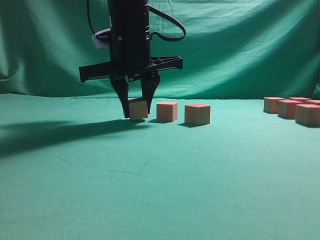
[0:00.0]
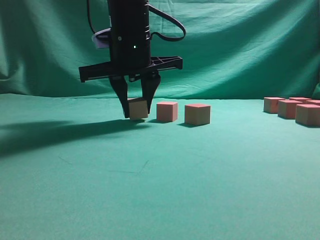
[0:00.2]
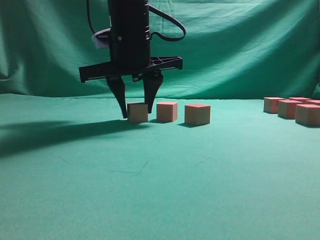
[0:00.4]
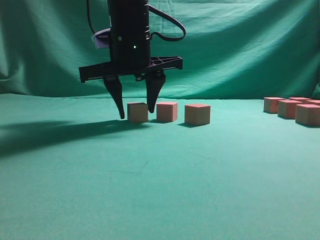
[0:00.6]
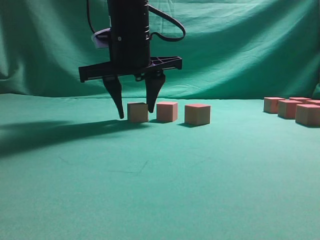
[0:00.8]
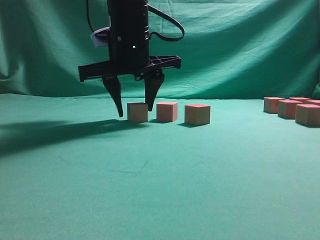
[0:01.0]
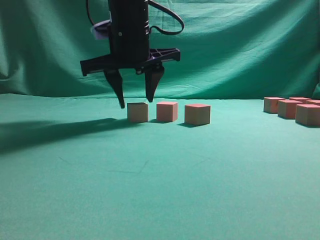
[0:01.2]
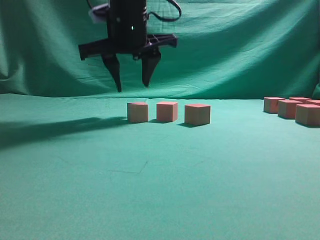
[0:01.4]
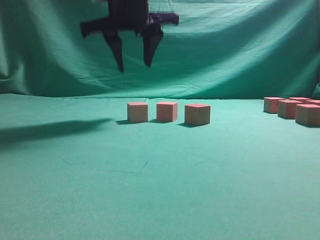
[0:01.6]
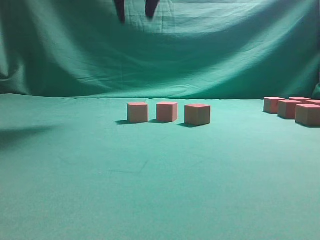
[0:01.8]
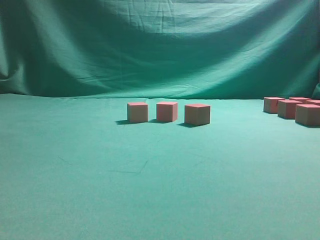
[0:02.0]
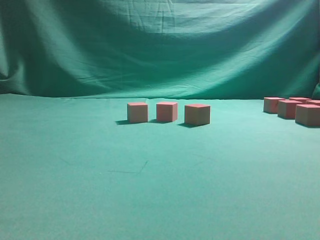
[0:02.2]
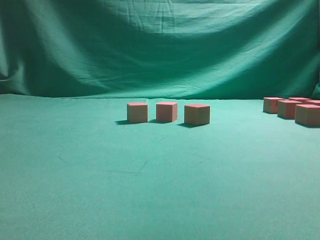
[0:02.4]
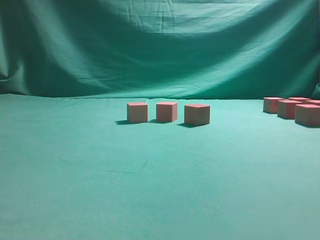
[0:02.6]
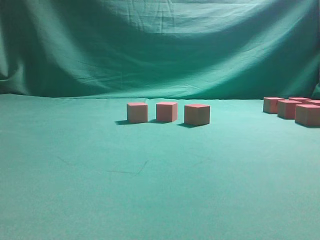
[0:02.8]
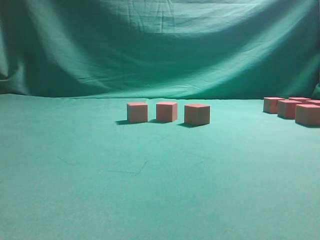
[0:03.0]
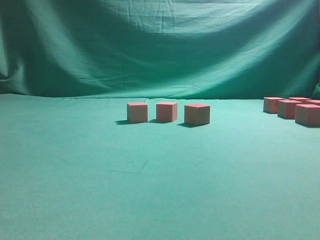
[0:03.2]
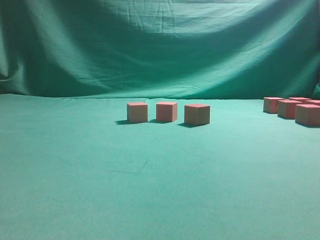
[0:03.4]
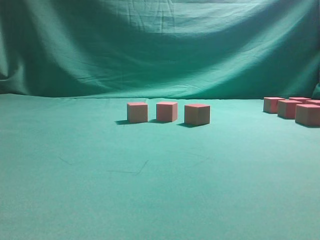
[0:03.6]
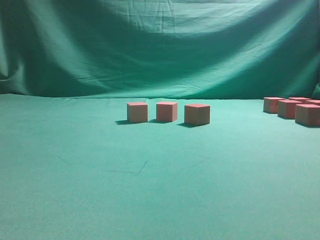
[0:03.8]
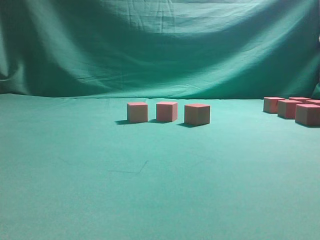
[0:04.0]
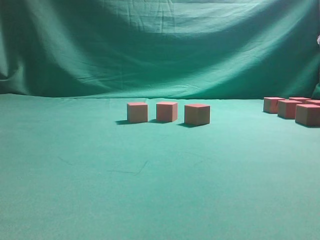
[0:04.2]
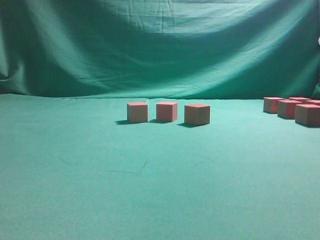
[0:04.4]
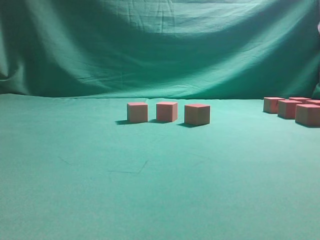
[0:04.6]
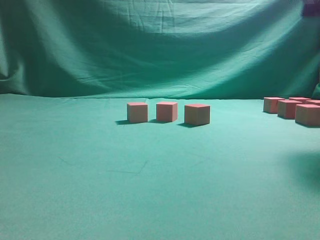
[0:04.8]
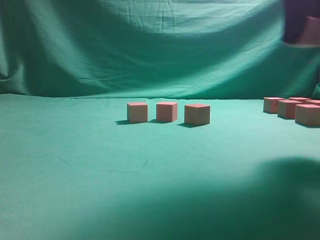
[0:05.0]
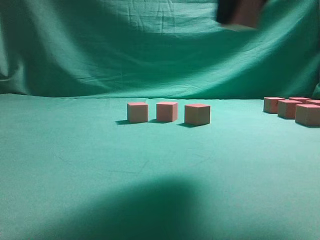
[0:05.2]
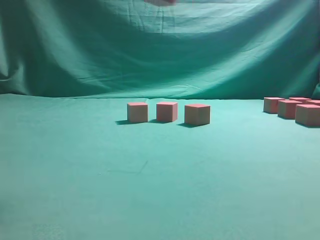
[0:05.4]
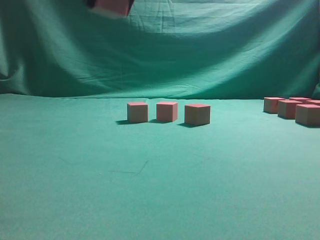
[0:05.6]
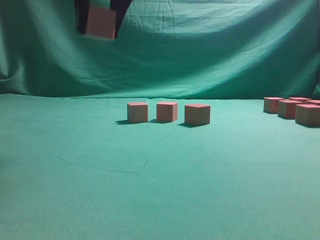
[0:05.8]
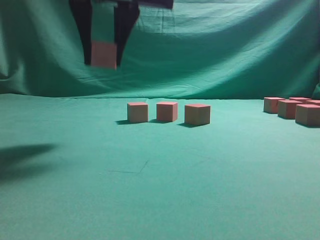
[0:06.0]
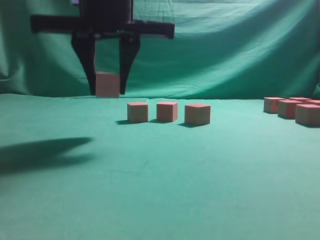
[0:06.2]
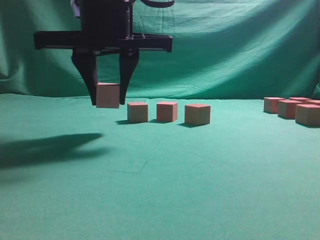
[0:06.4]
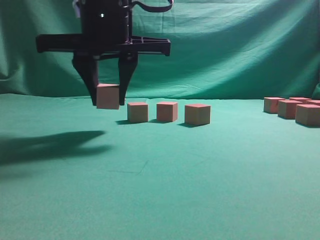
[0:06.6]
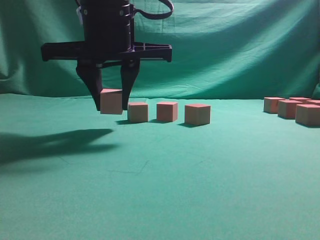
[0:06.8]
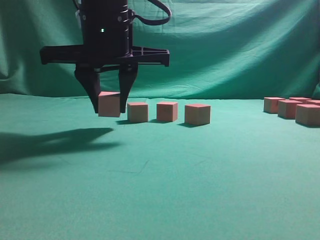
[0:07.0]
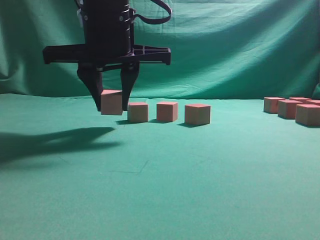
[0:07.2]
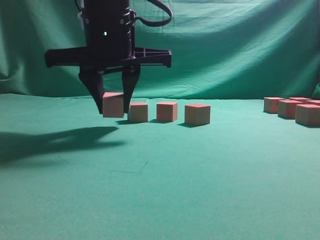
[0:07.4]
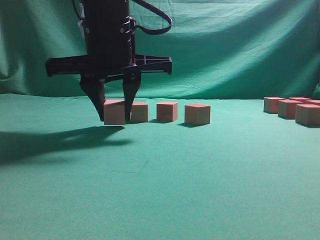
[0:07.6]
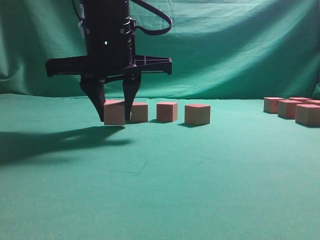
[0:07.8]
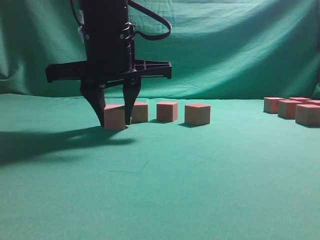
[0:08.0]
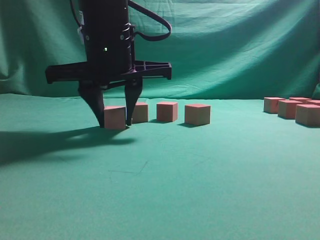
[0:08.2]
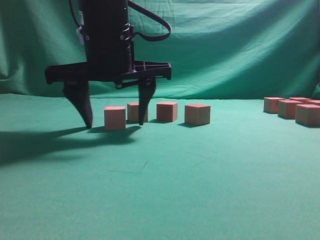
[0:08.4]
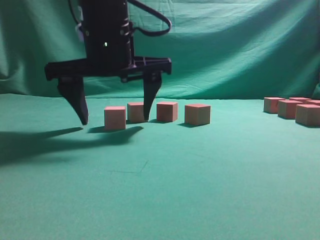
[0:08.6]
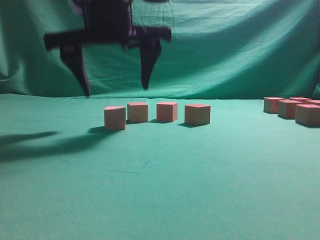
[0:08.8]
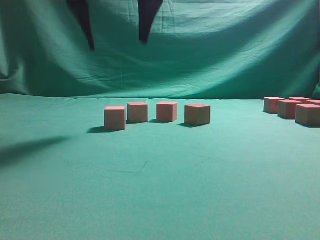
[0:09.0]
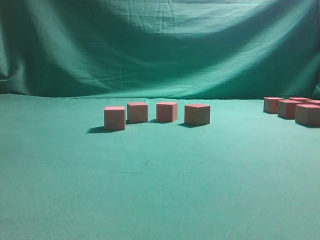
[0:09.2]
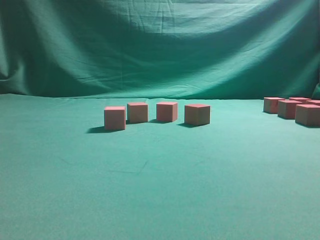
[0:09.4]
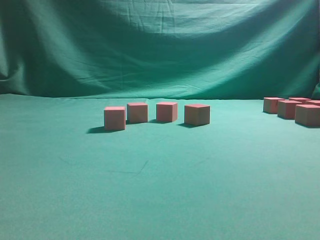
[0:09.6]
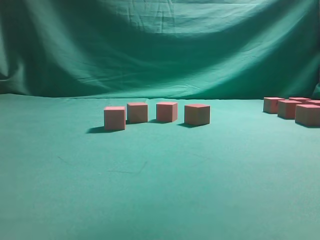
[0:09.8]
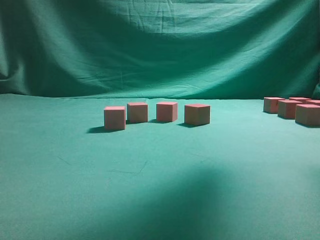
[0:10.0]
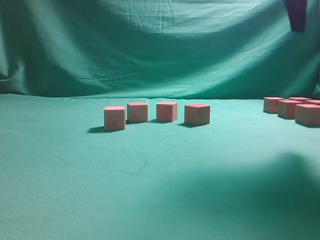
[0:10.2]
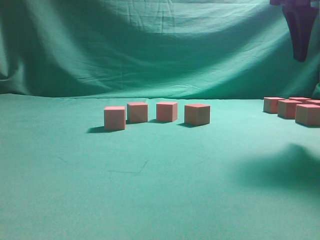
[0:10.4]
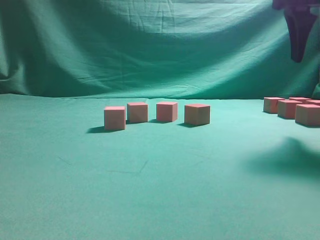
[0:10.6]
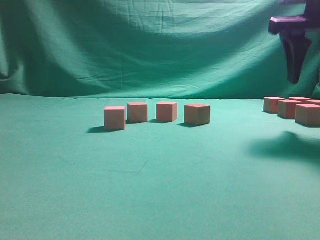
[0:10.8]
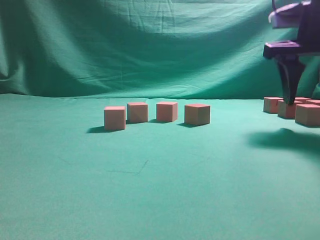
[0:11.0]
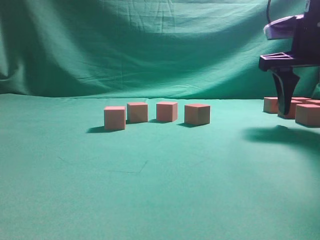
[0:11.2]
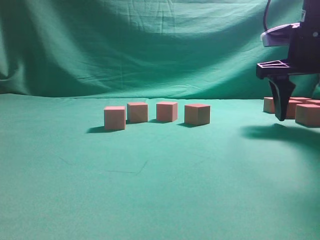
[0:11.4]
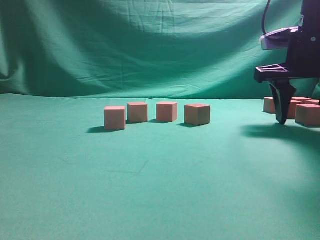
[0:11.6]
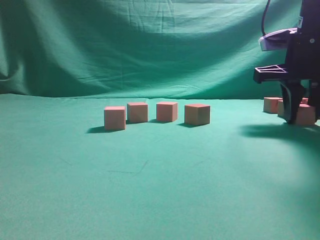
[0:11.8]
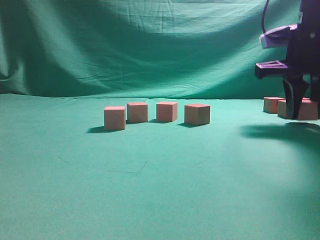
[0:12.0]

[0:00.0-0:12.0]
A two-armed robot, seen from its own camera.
Task of the whole recording: pick up the multiple cubes in two columns one by one and place them in another position on the table.
Step, 1.0 to 4.6 s: Pick up the block on the table.
Step, 4.8 to 8.2 s: Place the block at the correct position to assemble the letter S.
Step, 8.4 to 11.8 s: Pick up the block on the table.
0.0 to 1.6 s: The right gripper moves upward, roughly 5 cm.
1.6 to 3.0 s: The right gripper goes about 35 cm to the right and backward.
4.4 to 6.0 s: The right gripper travels to the left by some 35 cm.
6.0 to 7.6 s: The right gripper shifts approximately 10 cm downward.
7.6 to 9.0 s: The right gripper heads upward, covering some 10 cm, and opens.
9.0 to 10.4 s: The right gripper moves to the right, roughly 25 cm.
10.4 to 12.0 s: The right gripper is displaced downward and forward by some 10 cm, and closes.

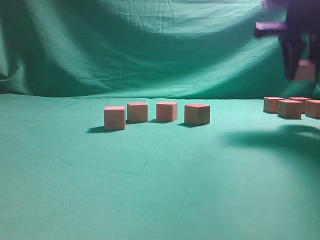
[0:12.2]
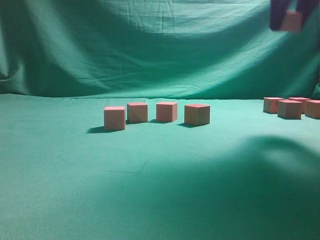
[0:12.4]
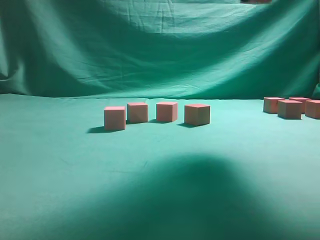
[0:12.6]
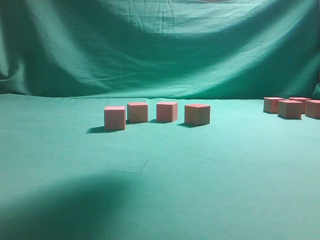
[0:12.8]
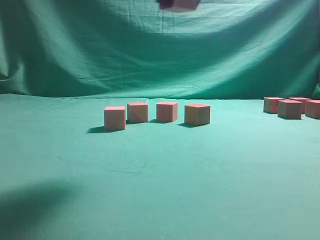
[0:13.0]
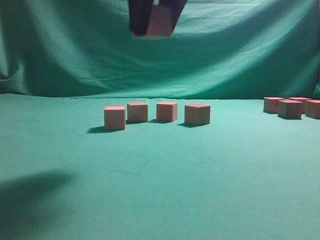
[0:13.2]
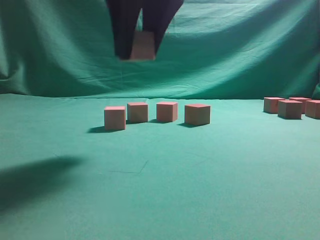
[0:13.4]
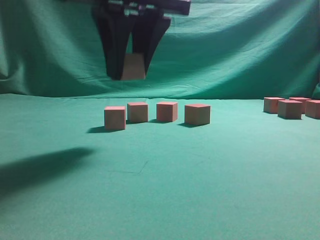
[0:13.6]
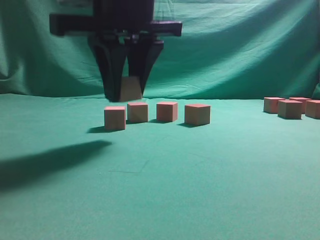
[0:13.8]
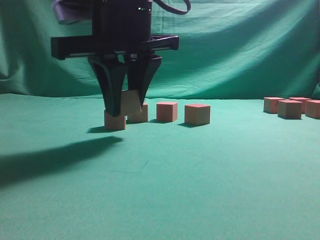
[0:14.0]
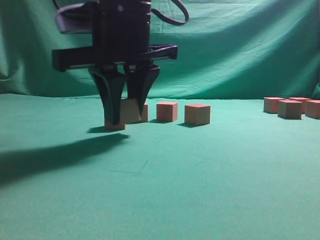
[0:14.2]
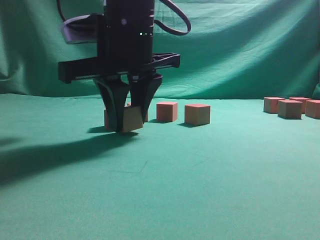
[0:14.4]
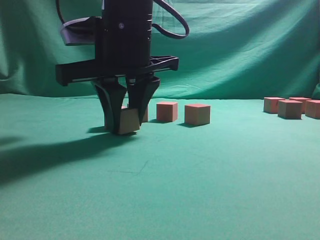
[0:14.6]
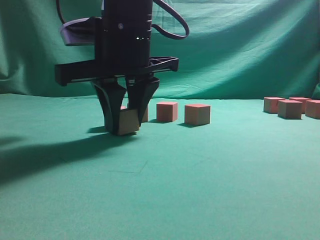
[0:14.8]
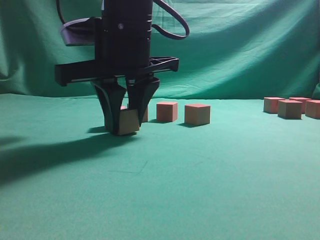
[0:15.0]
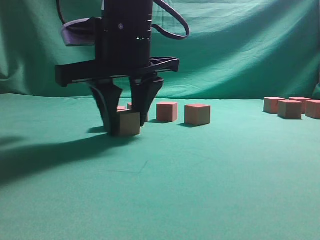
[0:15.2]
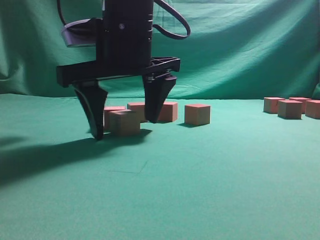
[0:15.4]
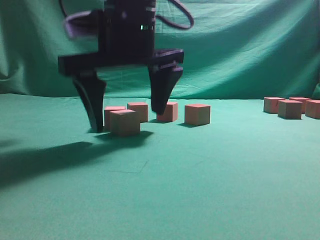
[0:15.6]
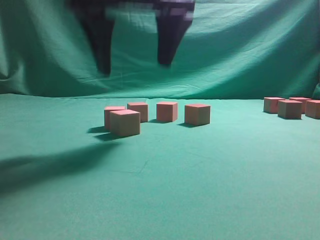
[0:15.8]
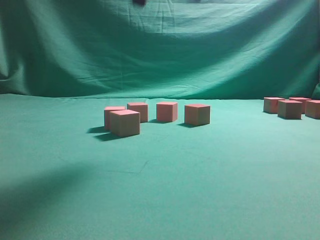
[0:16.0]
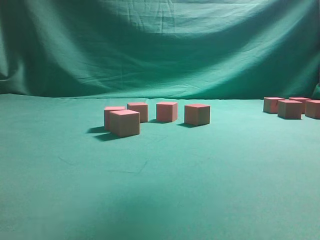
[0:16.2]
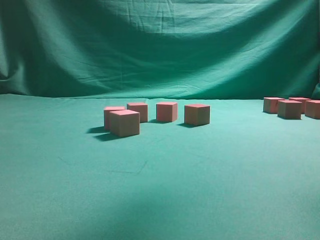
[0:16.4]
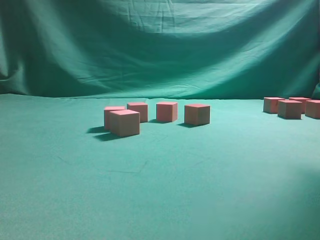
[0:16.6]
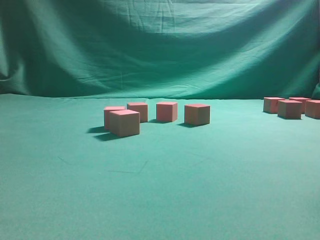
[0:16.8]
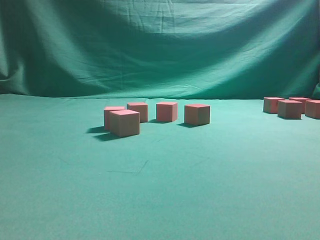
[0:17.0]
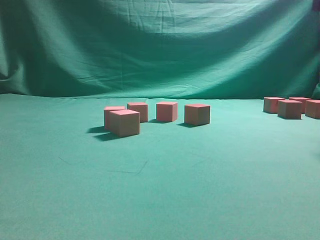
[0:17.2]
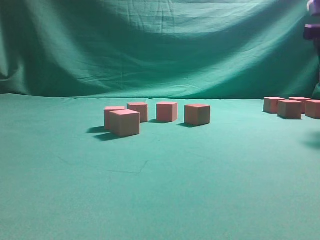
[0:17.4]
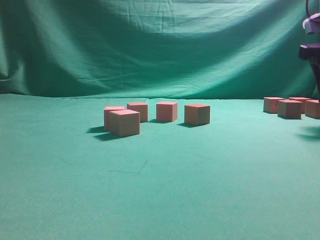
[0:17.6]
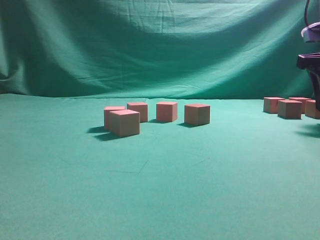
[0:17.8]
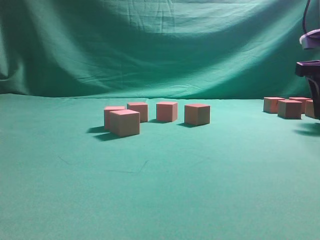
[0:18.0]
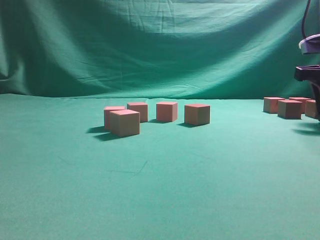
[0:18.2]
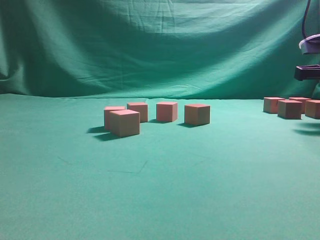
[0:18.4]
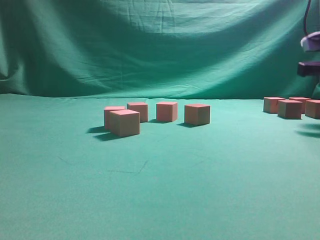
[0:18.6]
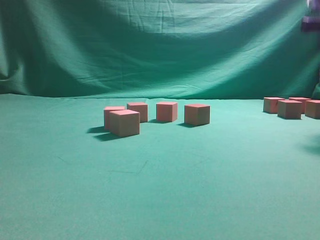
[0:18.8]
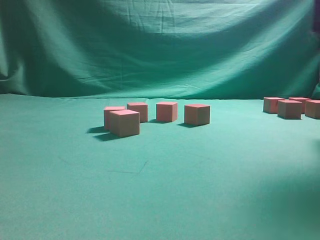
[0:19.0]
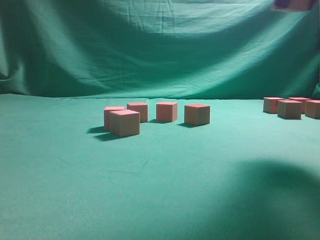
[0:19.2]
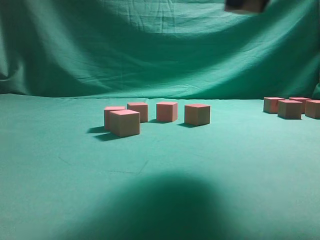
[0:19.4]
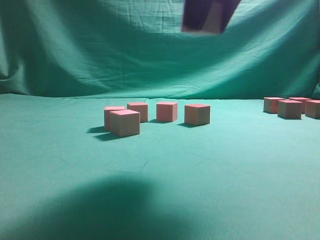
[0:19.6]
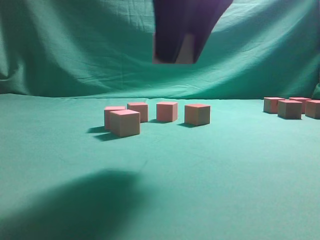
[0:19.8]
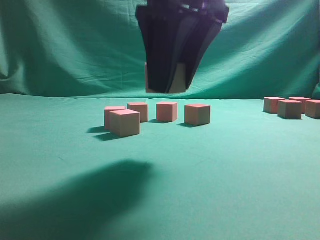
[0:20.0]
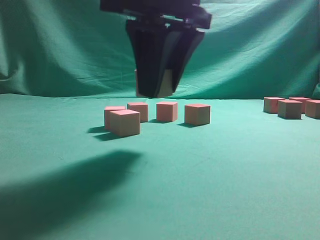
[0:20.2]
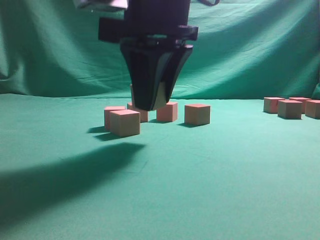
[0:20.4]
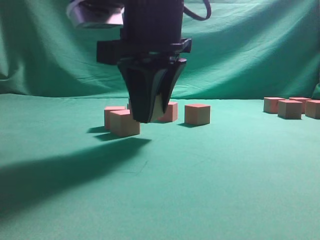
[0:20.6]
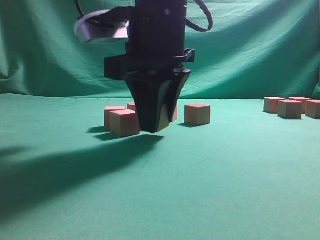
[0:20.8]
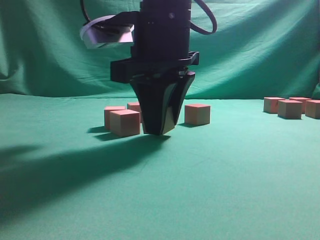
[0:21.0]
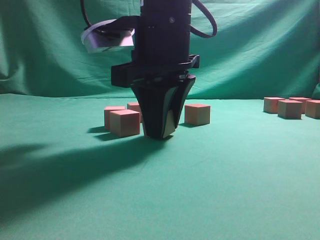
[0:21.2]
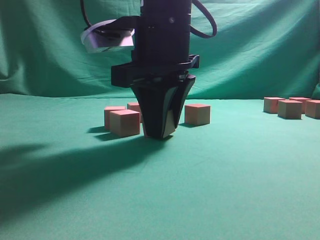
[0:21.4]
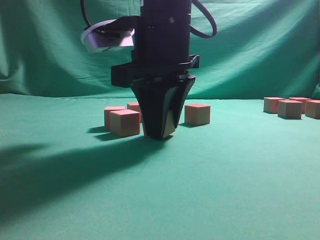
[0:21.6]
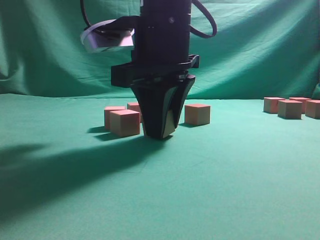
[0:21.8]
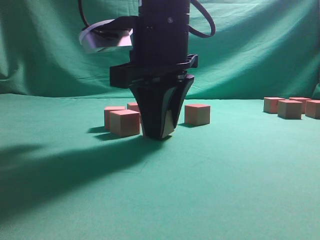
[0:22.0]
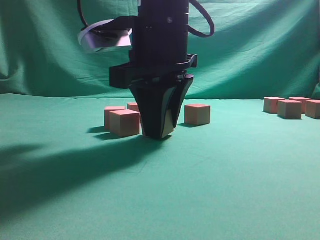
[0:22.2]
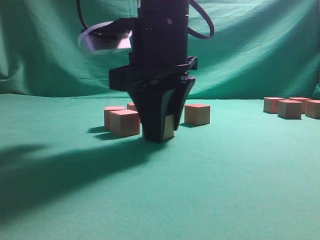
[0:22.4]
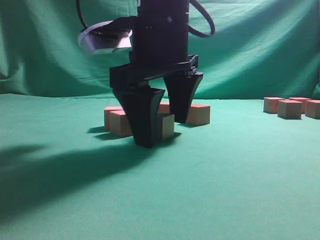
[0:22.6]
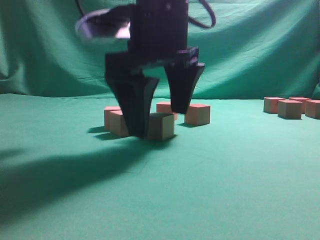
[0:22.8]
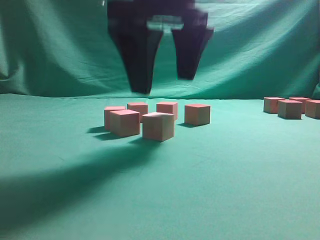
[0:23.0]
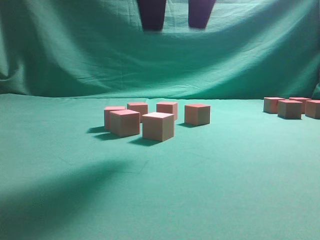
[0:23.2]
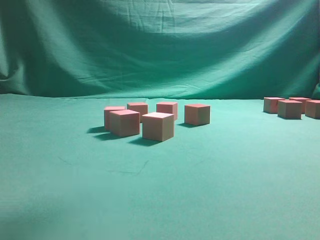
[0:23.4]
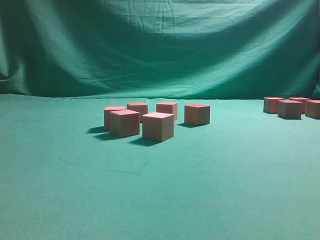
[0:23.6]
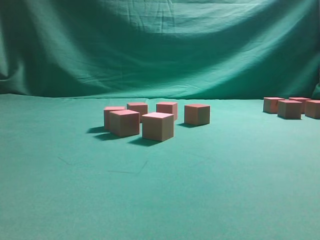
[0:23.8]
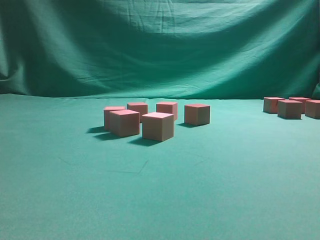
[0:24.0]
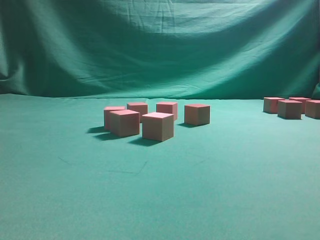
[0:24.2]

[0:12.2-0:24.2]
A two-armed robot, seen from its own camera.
Task of the whole recording: pick up the multiple cubes in two columns one by one and place them in another position on the table.
Step, 12.2 to 15.4 s: Place the block at the correct position to assemble the letter S.
Step, 15.6 to 18.6 s: Pick up the block on the table.
Step, 18.8 to 22.6 s: Place the block at the correct position to assemble the letter S.
12.2 to 13.8 s: The right gripper goes about 25 cm to the left.
13.8 to 15.2 s: There are only small adjustments of the grippers.
15.2 to 16.6 s: The right gripper goes approximately 35 cm to the right and upward, and opens up.
16.6 to 18.2 s: The right gripper goes approximately 20 cm downward.
18.2 to 19.8 s: The right gripper goes approximately 30 cm to the left and backward, and closes up.
19.8 to 21.2 s: The right gripper travels downward and forward by about 10 cm.
21.2 to 22.6 s: The right gripper opens.
22.6 to 24.2 s: The right gripper is displaced to the right and upward by roughly 25 cm.
